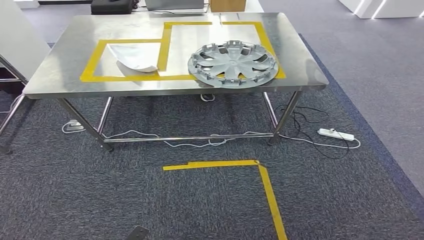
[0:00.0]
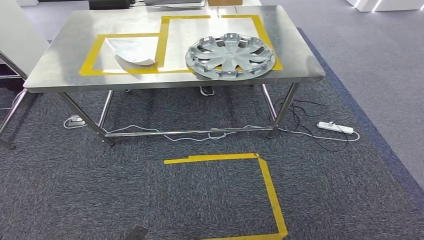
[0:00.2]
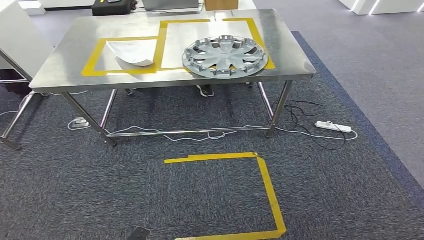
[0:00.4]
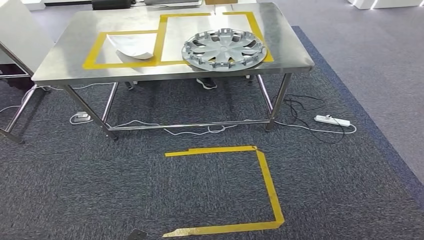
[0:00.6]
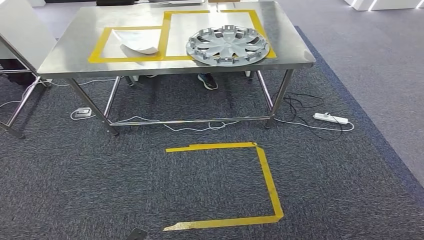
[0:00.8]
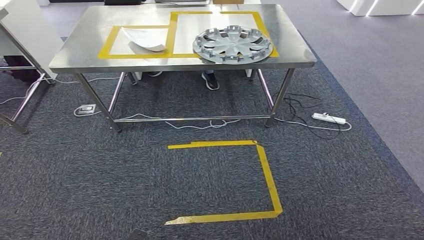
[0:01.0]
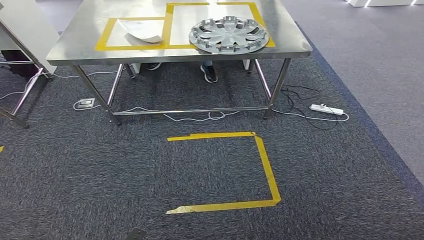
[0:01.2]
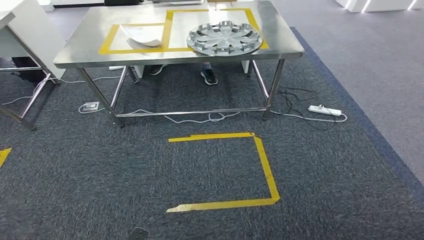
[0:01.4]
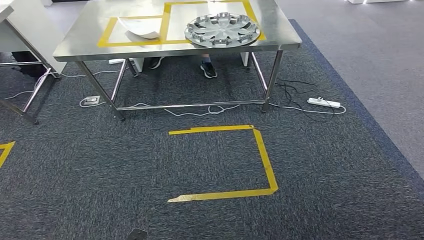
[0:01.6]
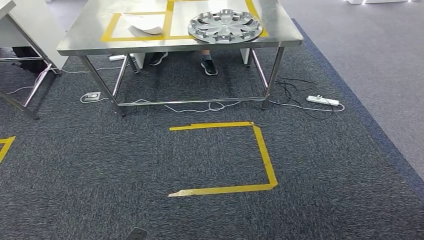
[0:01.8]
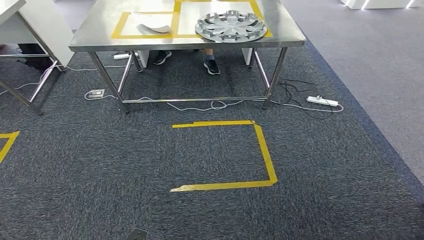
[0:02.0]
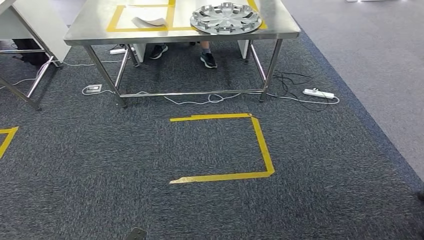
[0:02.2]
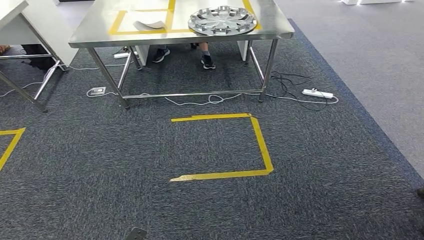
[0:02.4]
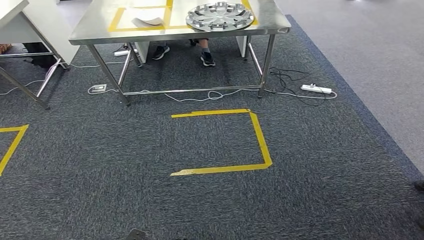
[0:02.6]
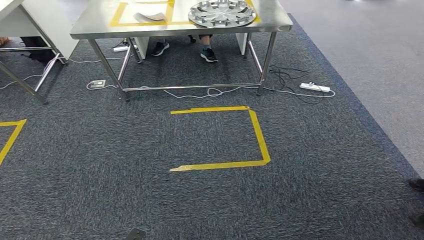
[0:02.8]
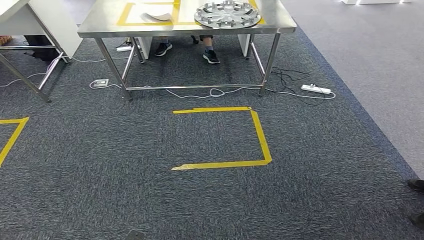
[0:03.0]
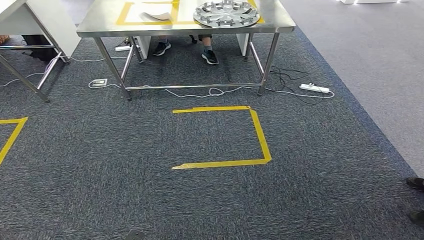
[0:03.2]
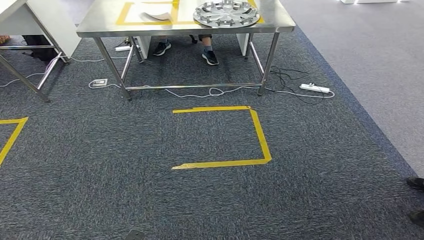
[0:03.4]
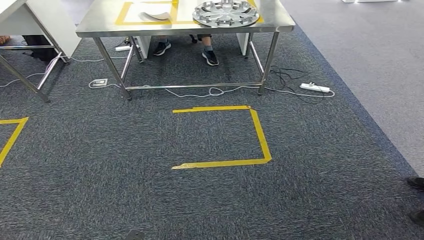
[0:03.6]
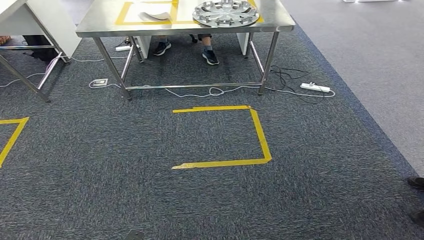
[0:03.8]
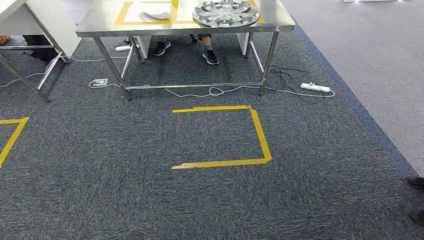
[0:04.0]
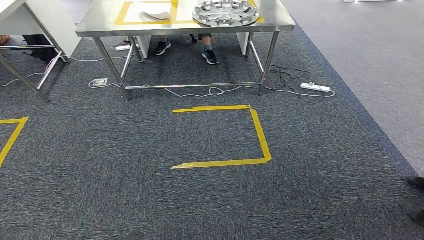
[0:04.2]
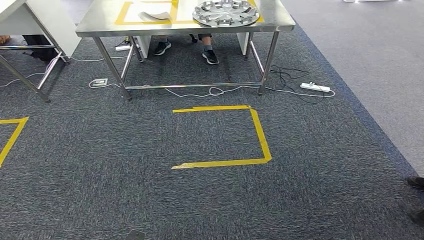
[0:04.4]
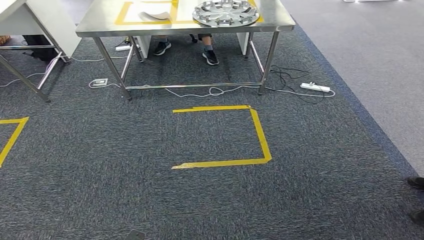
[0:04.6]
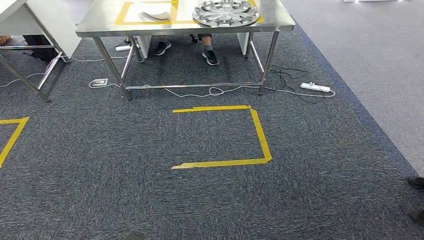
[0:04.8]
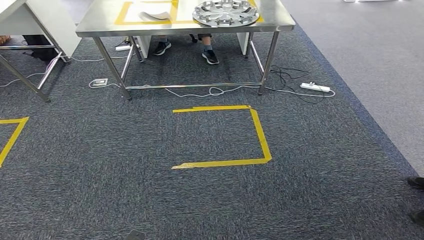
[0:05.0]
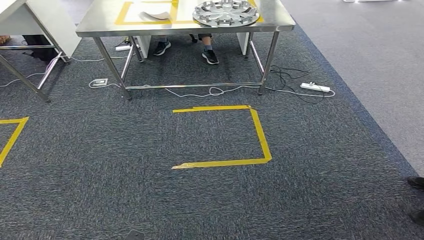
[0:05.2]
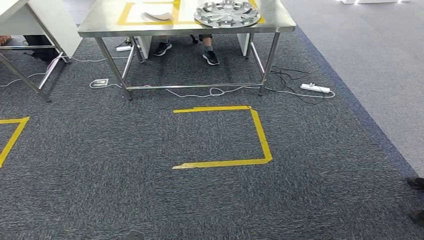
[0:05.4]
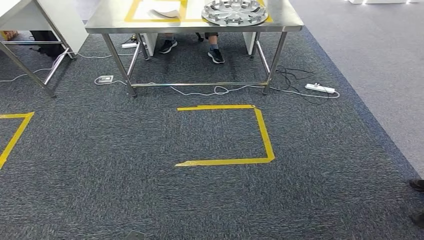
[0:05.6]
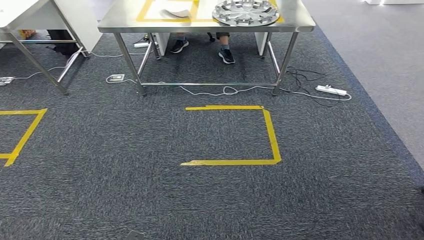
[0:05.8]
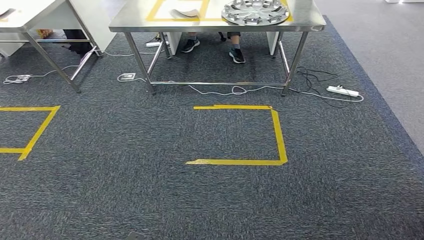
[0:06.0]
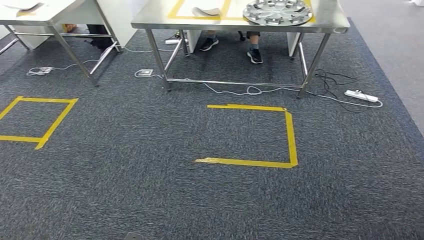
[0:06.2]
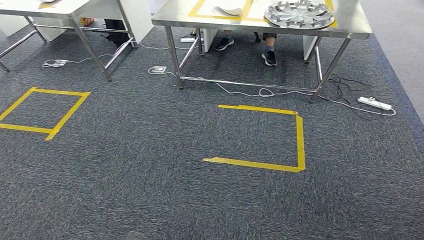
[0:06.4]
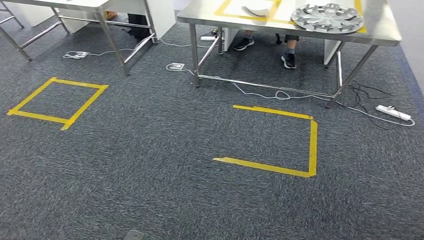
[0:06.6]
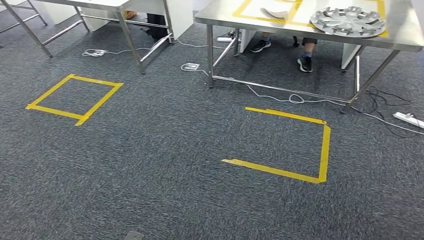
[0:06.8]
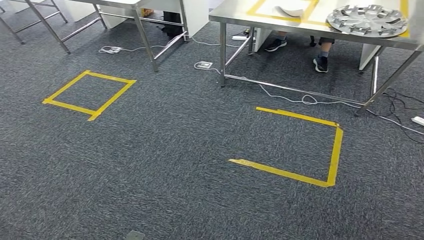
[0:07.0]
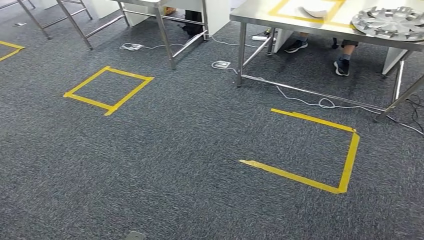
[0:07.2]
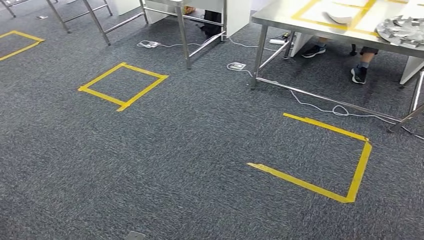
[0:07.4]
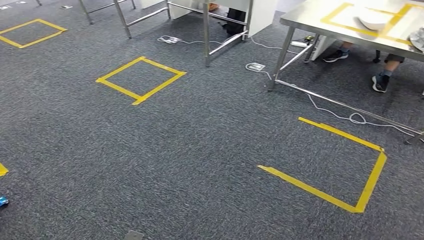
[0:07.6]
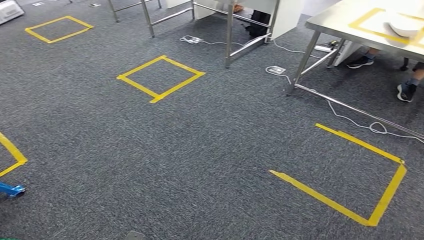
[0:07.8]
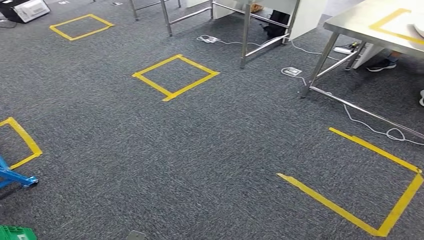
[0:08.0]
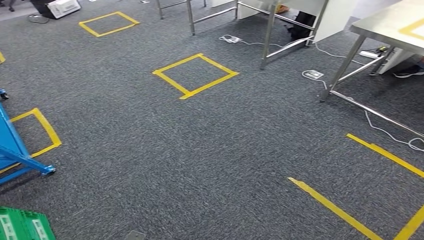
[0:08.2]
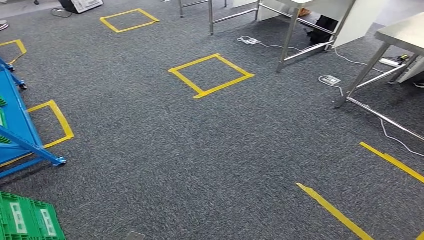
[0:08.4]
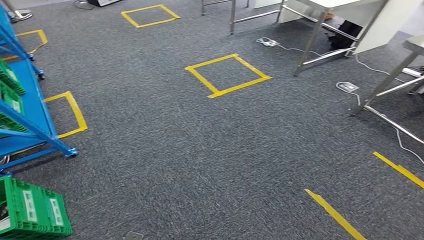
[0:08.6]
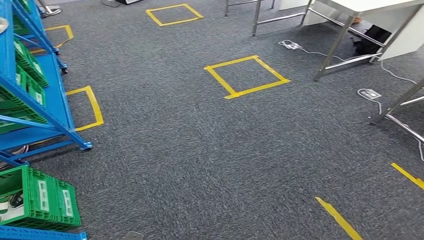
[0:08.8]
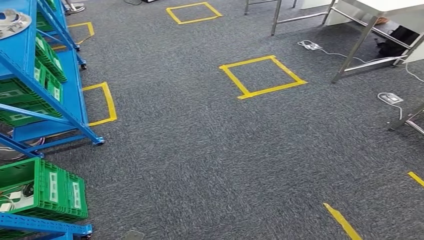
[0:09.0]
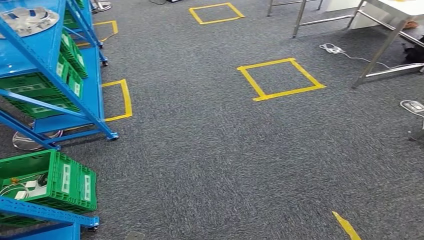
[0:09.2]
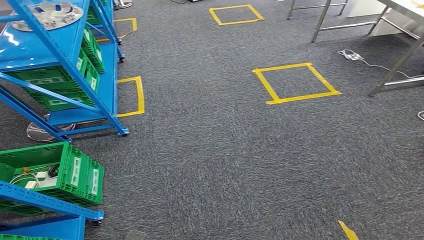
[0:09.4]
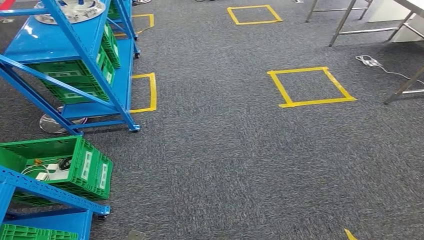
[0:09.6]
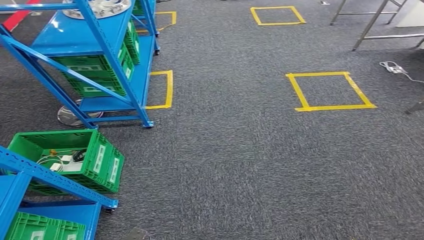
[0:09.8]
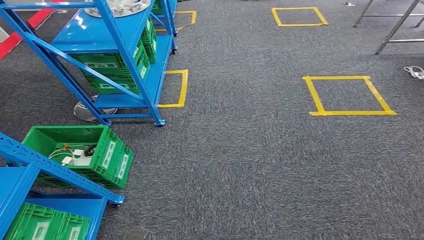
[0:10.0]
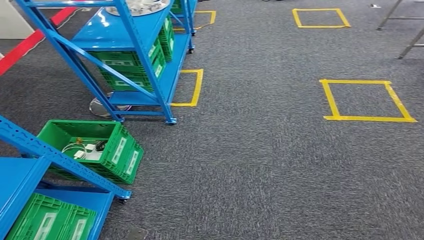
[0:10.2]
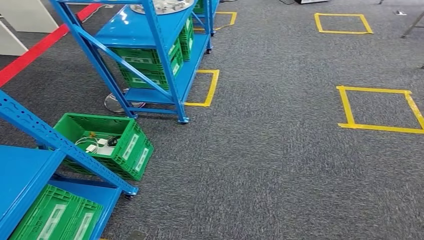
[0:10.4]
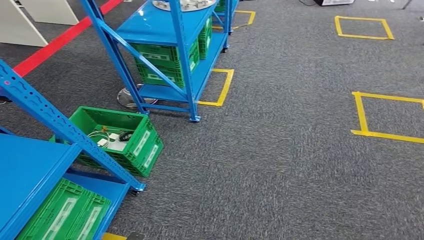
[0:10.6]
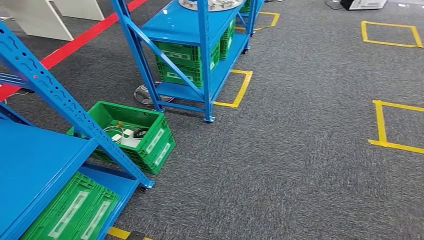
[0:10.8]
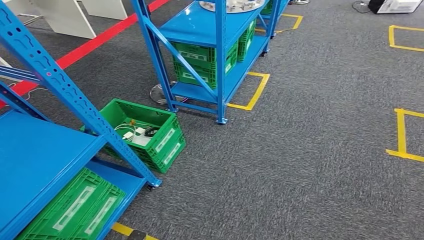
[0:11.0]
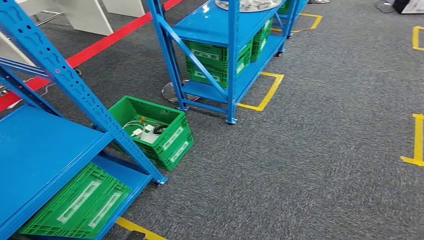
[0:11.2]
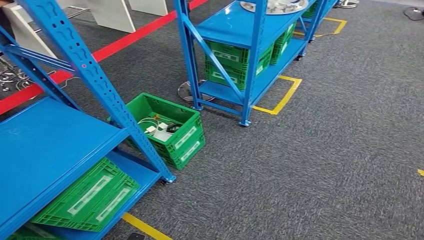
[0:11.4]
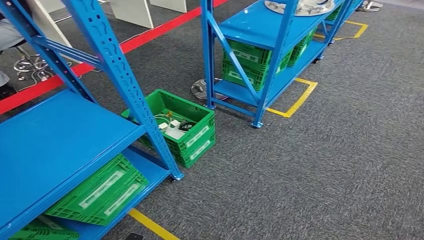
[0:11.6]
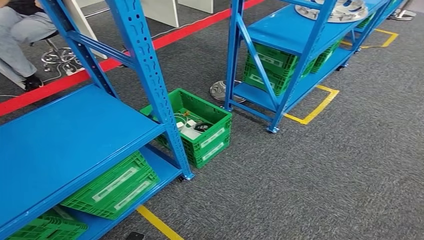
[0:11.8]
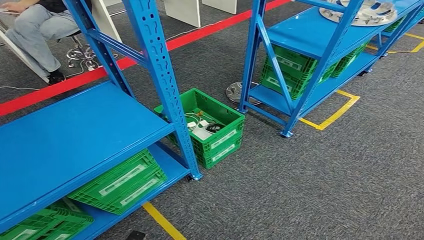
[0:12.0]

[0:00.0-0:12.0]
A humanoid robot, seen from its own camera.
0:03.0 to 0:04.4: There are only small adjustments of the hands.

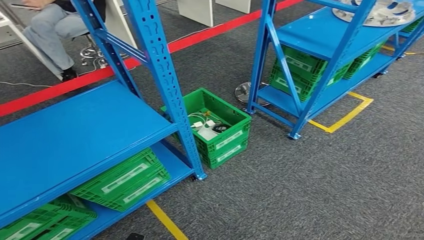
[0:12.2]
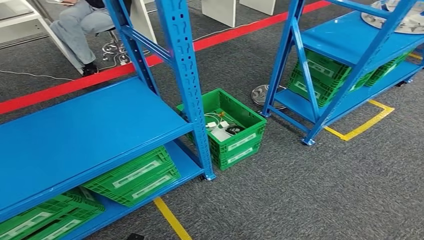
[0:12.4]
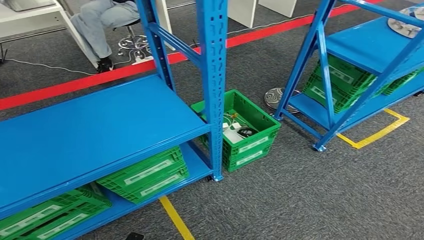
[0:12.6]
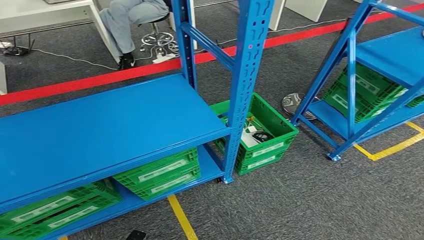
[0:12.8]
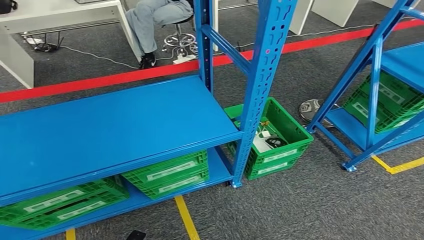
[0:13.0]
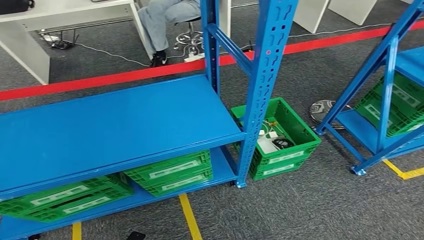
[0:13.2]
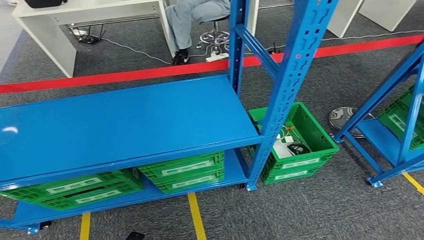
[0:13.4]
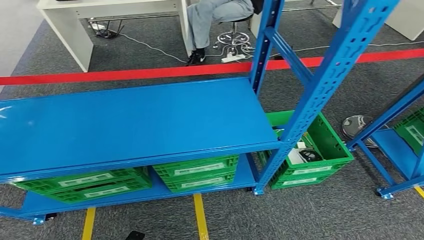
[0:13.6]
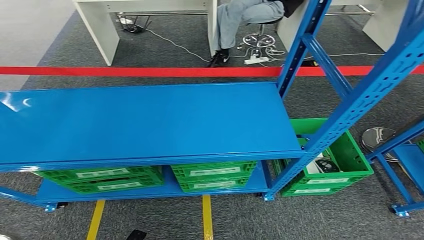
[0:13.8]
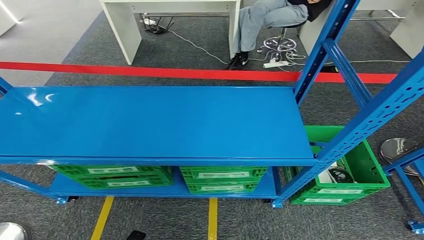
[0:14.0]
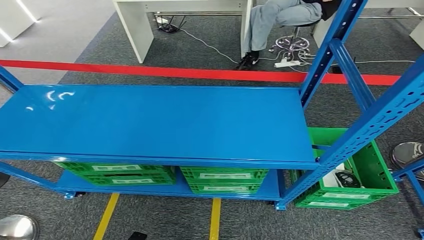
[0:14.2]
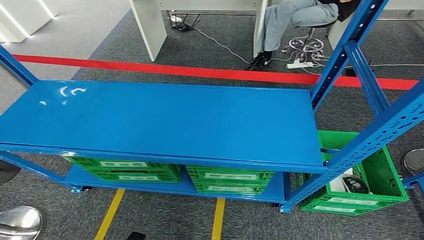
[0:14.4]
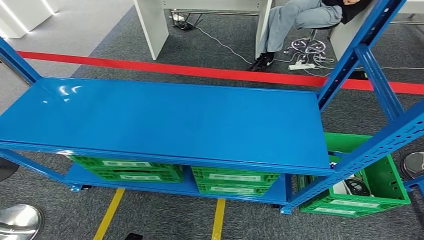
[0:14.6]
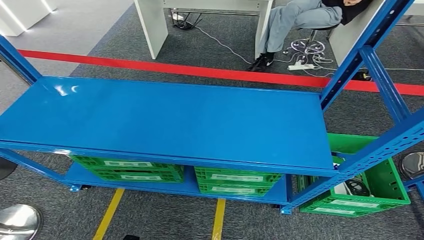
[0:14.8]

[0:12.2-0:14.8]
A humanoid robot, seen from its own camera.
Step, 0:12.2 to 0:14.8: Move to the initial position of the workbench.
